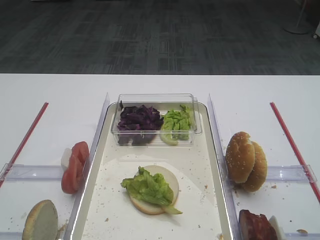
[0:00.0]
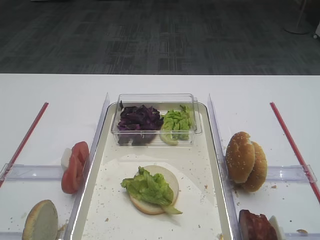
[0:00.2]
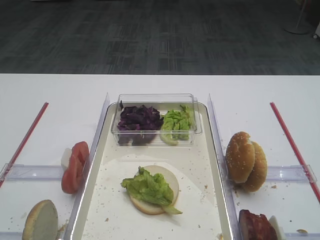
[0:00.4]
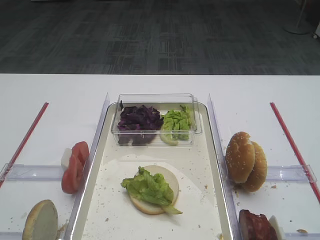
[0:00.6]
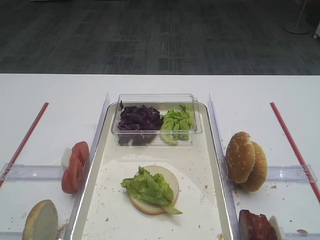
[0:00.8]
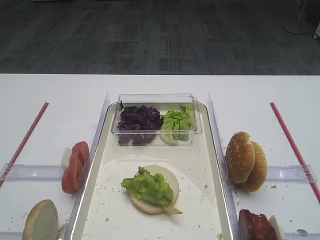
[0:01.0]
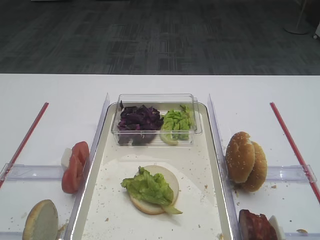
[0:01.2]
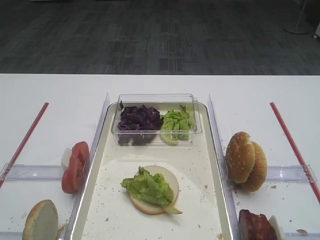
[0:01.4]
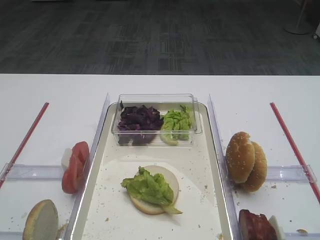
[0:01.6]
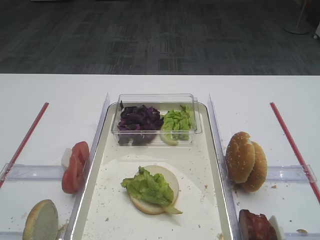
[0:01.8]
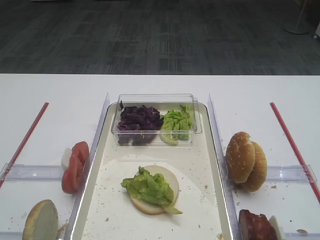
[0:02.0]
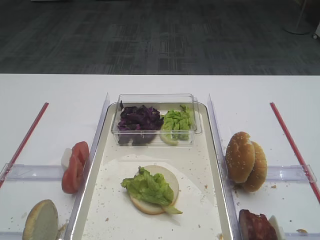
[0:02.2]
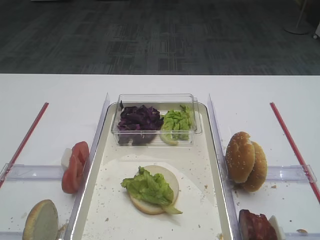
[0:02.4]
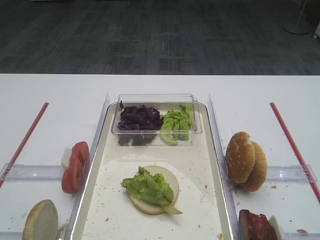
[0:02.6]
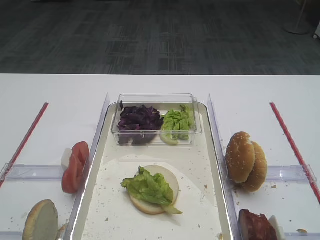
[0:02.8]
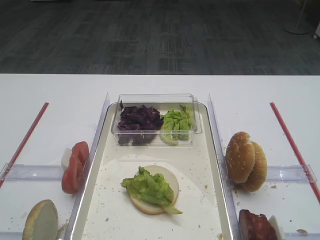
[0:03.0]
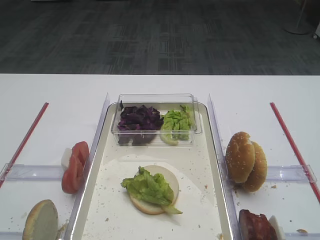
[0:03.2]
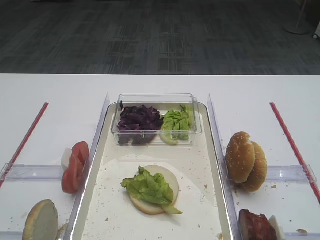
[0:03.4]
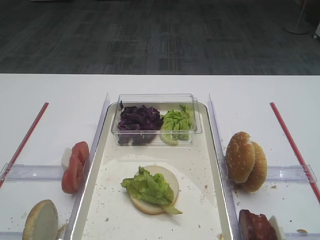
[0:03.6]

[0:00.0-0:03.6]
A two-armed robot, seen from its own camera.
0:01.8 to 0:03.6: Neither gripper changes place.

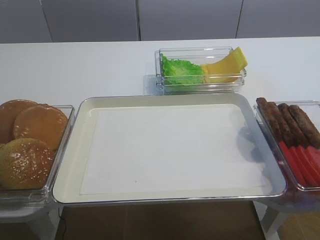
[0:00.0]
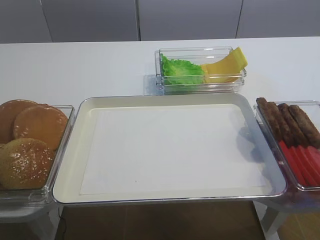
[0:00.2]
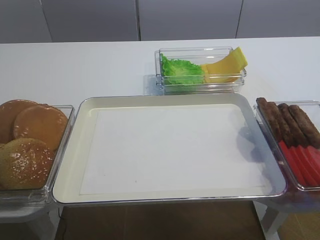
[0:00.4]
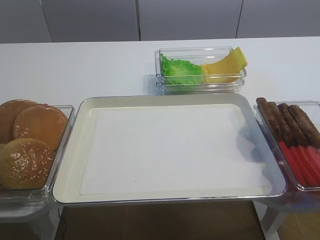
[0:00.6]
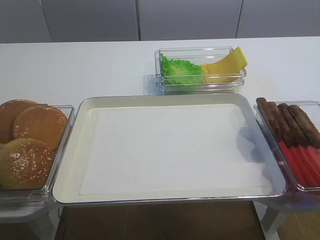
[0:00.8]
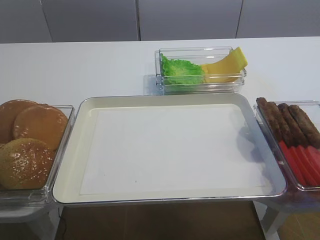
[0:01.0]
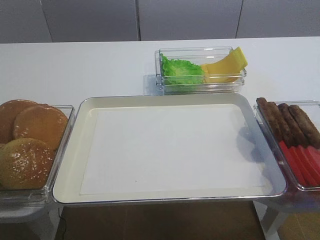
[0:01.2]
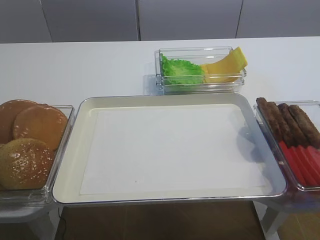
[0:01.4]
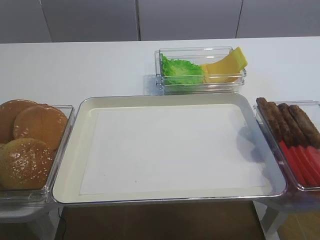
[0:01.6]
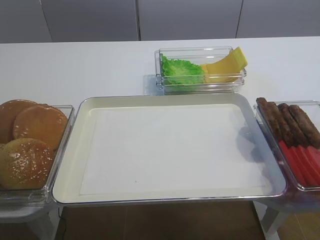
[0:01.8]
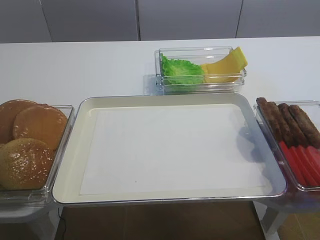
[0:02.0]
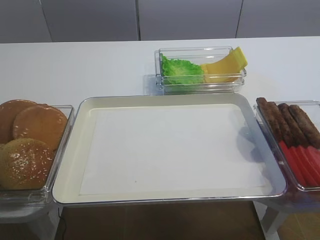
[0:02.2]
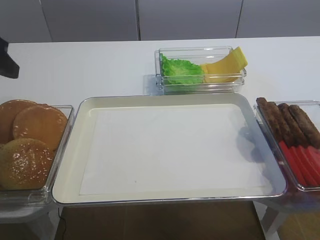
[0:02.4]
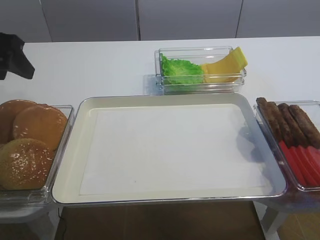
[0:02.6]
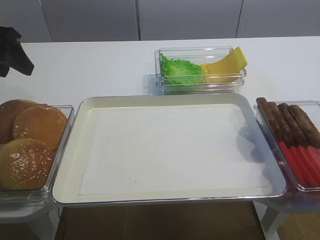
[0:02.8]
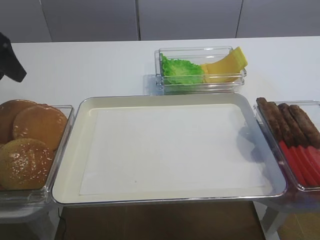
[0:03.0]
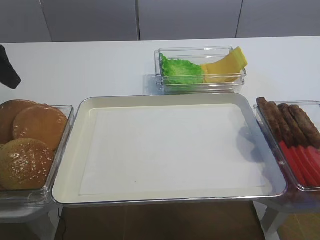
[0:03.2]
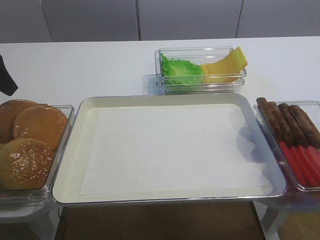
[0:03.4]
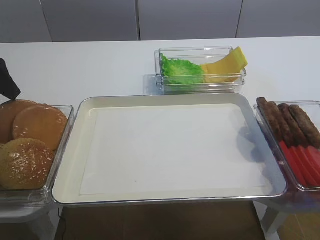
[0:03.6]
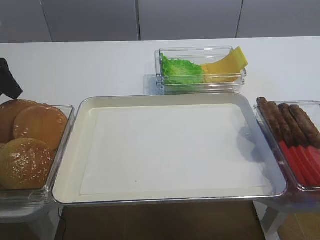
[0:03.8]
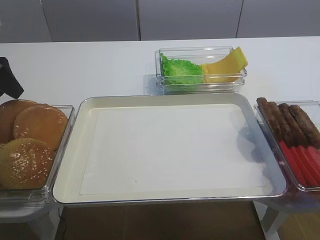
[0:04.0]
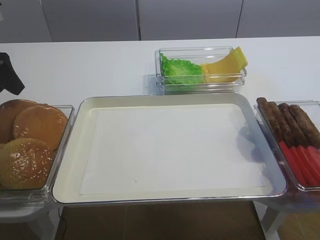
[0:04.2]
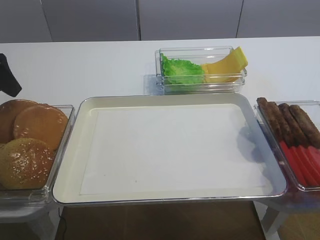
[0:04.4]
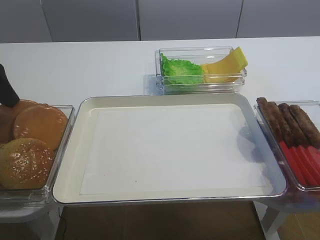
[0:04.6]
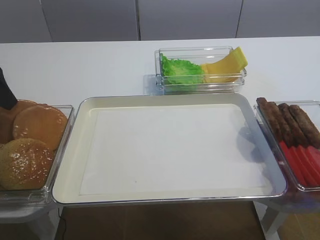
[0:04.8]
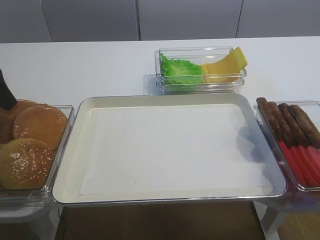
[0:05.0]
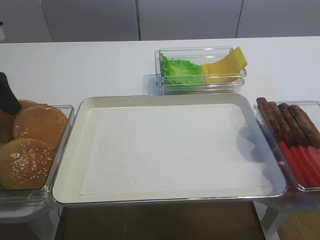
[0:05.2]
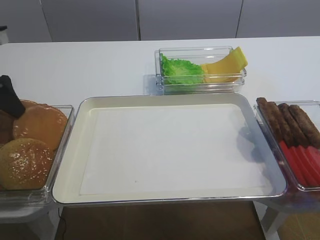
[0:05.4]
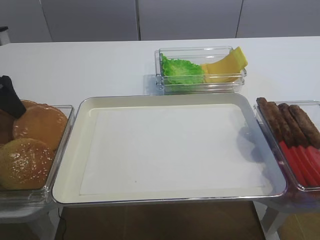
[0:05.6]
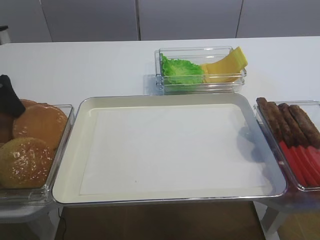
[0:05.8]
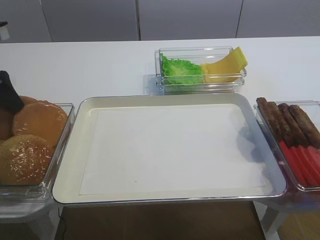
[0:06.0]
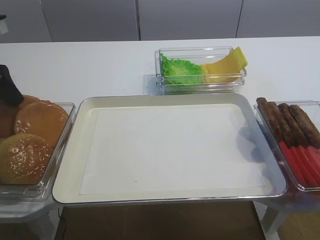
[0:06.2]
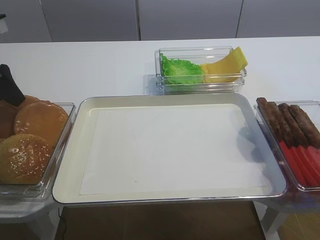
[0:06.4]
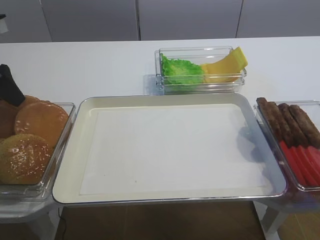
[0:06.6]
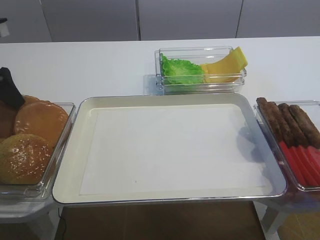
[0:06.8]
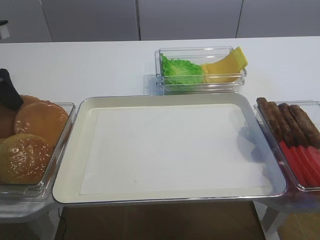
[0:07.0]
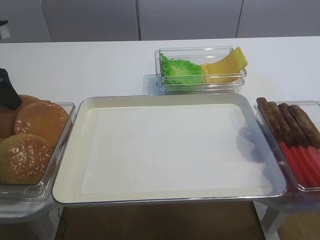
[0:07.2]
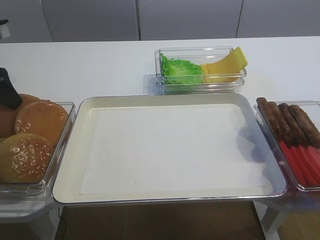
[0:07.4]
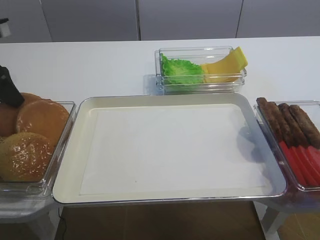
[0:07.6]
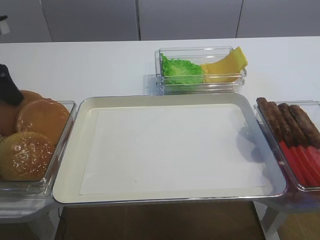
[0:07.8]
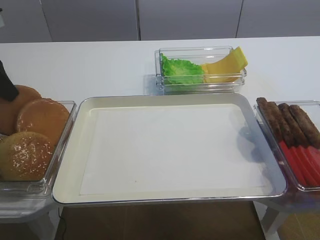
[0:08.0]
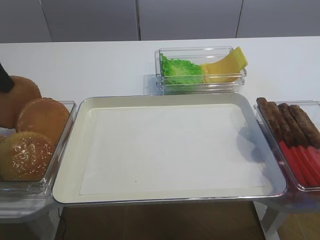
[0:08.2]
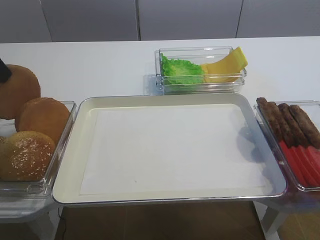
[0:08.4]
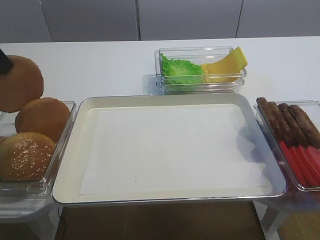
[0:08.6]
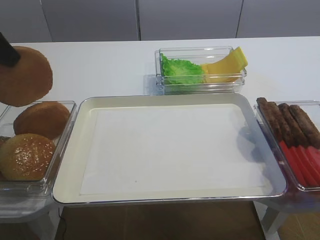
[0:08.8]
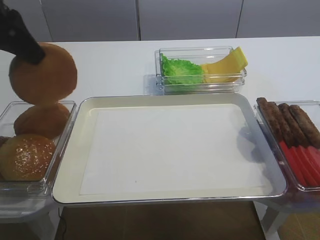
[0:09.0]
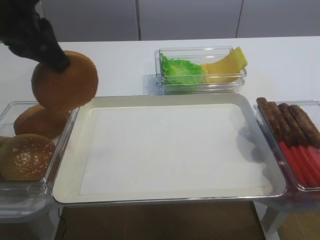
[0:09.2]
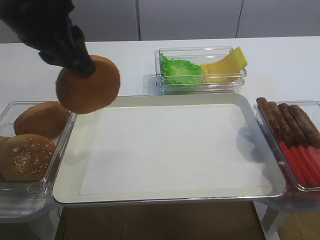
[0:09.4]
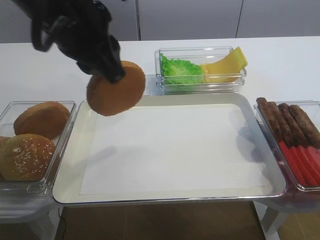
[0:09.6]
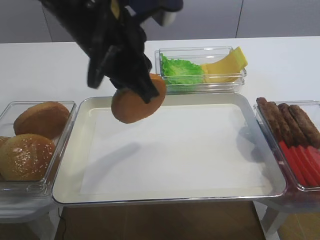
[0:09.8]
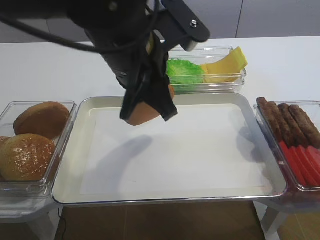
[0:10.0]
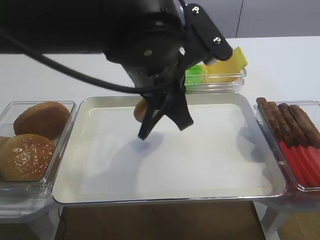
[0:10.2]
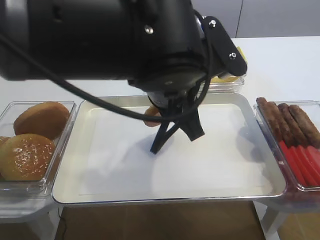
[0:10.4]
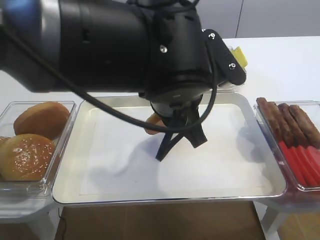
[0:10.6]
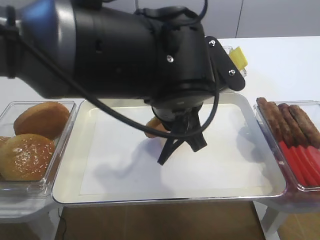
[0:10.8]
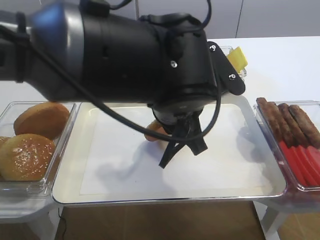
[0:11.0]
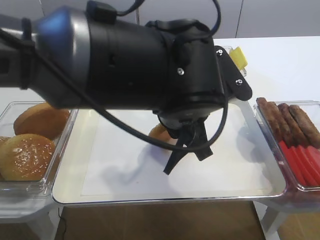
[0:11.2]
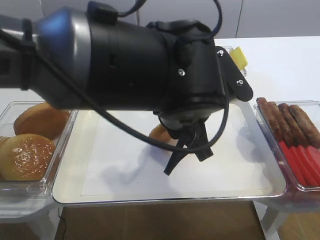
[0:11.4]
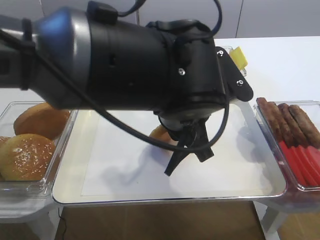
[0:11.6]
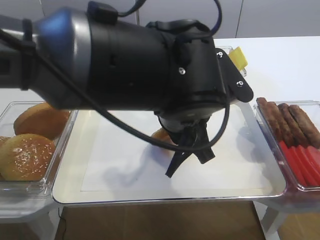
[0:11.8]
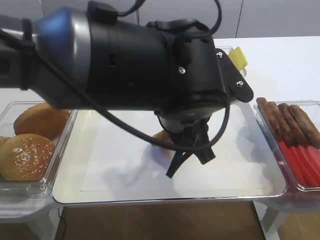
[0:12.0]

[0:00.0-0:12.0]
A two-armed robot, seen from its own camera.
Step, 0:00.0 to 0:08.6: Pick up the bread slice with the left gripper.
0:01.6 to 0:03.0: The left gripper heads forward, covering about 25 cm.
0:03.0 to 0:04.4: The grippers move only a little.
0:04.4 to 0:06.0: The left gripper closes its fingers.
0:06.0 to 0:07.6: The left gripper closes its fingers.
0:07.6 to 0:09.0: The left gripper moves upward, to the right and backward, roughly 15 cm.
0:09.0 to 0:10.4: The left gripper goes about 25 cm to the right.
0:10.4 to 0:12.0: The left gripper opens up.

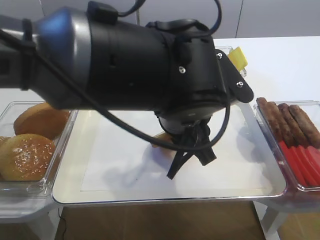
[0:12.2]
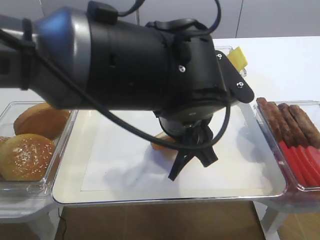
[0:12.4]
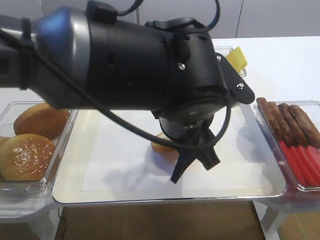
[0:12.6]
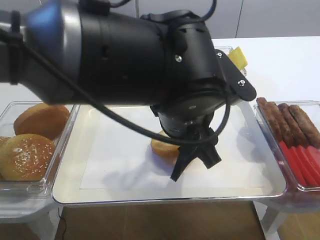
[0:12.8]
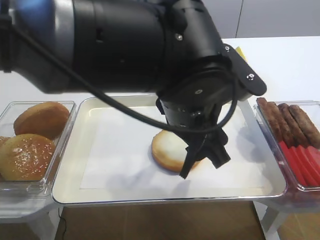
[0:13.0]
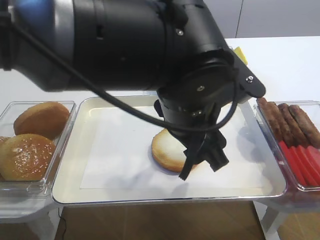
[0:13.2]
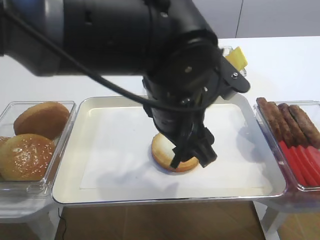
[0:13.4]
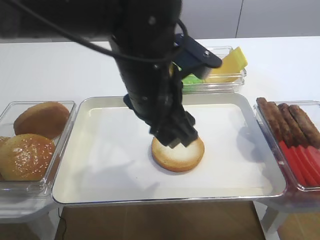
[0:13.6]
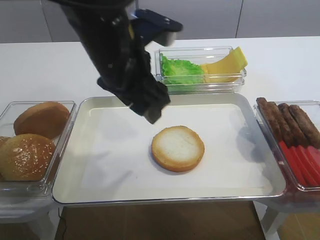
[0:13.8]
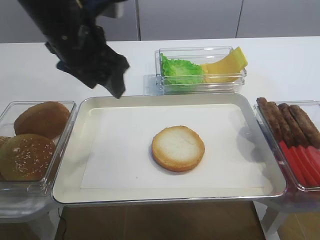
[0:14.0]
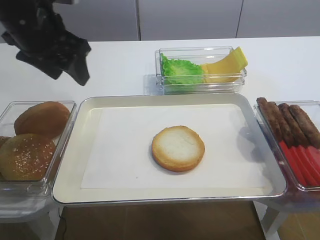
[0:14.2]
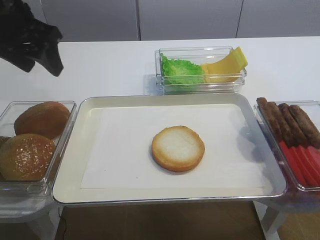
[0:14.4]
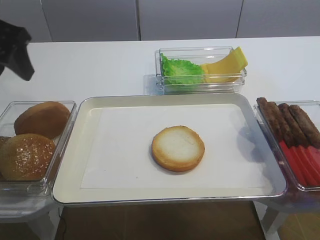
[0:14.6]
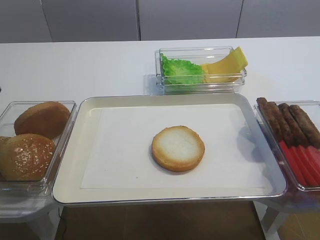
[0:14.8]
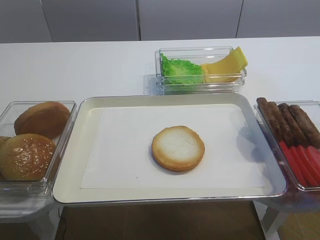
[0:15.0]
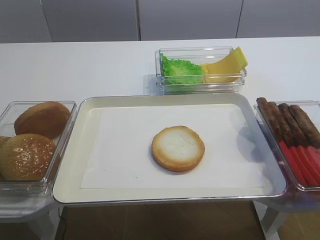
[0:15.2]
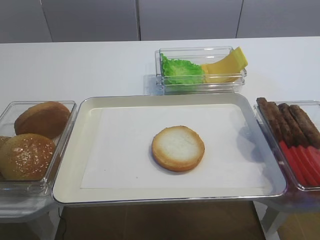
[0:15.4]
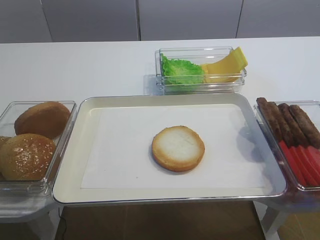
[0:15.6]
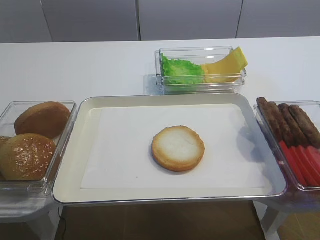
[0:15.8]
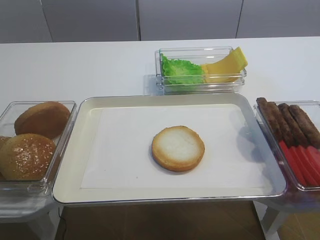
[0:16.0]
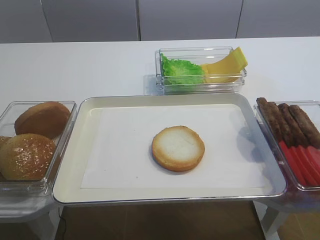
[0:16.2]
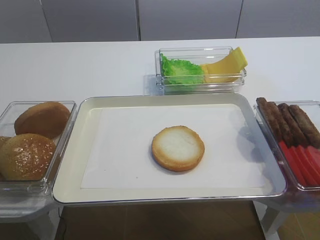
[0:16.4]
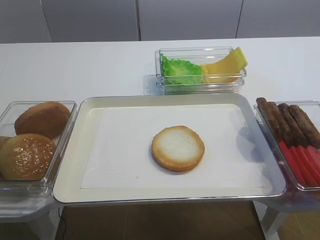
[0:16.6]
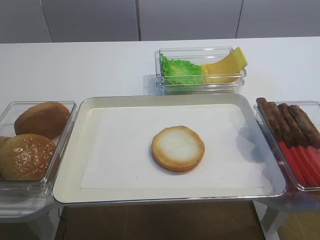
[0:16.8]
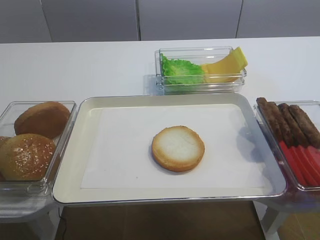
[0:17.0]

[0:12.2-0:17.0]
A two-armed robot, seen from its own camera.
0:12.2 to 0:13.8: The left gripper heads to the left, covering some 10 cm, and opens.
0:13.8 to 0:15.4: The left gripper is displaced to the left and backward by some 30 cm.

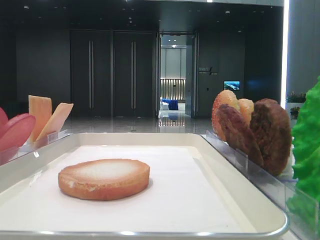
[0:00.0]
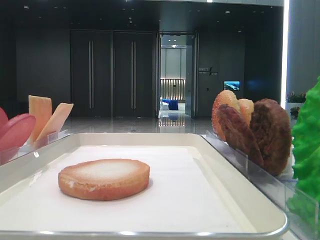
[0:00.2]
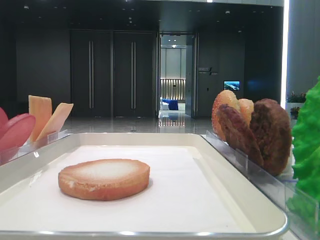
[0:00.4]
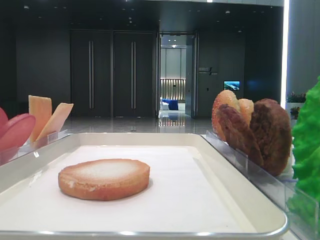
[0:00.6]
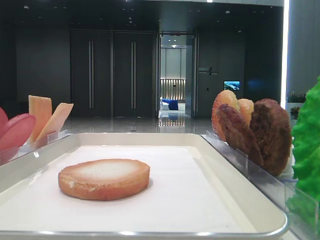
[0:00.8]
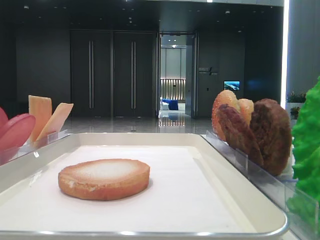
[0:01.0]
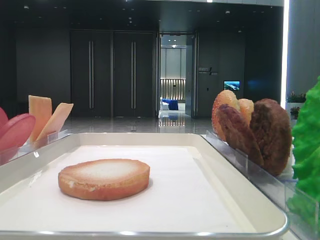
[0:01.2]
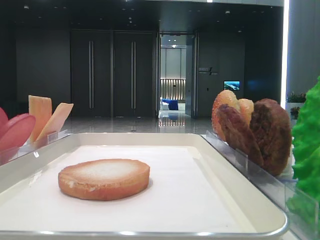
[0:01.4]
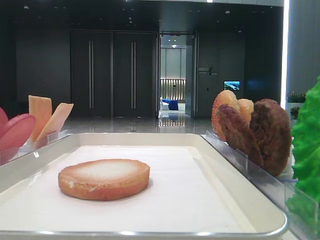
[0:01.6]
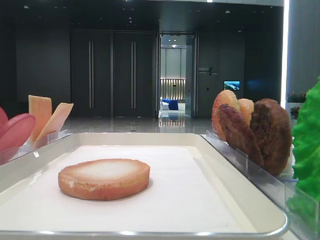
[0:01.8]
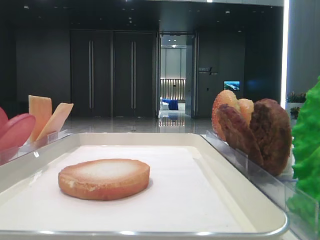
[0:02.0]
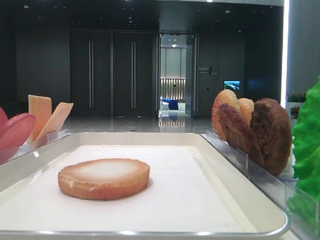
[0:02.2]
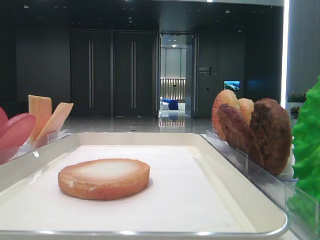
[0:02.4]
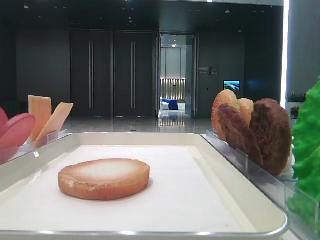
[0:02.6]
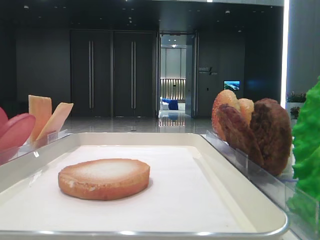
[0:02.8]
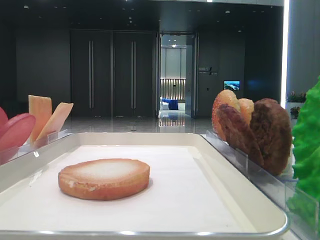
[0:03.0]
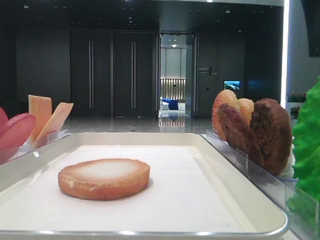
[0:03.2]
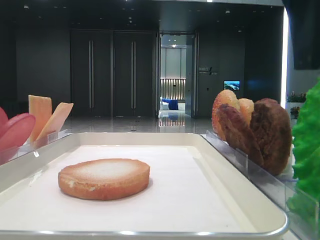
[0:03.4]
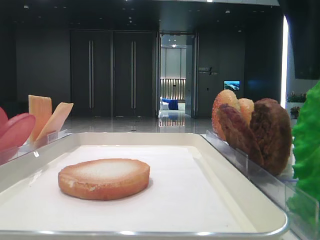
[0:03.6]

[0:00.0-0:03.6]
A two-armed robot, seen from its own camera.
0:01.8 to 0:03.6: The right gripper heads to the left and forward, covering roughly 20 cm.
